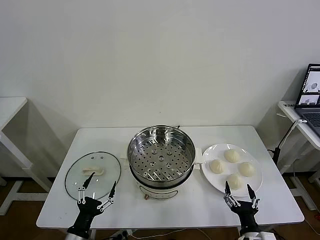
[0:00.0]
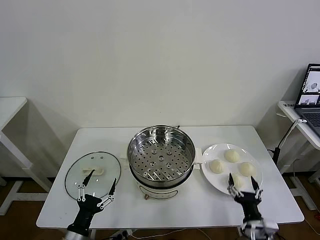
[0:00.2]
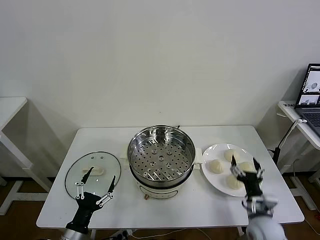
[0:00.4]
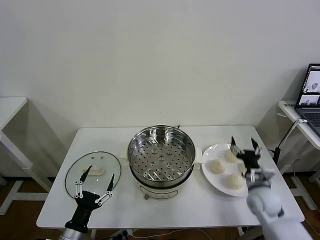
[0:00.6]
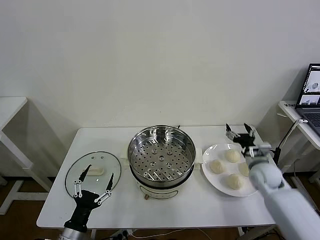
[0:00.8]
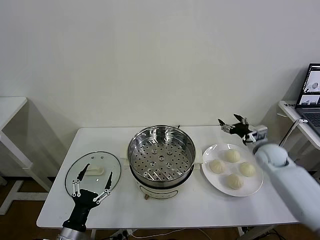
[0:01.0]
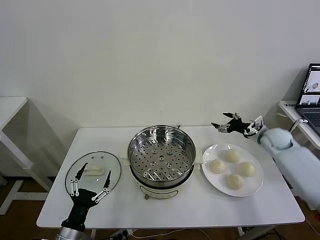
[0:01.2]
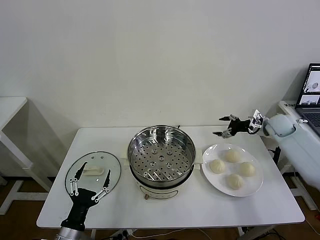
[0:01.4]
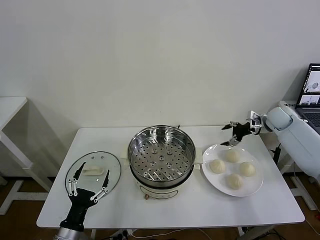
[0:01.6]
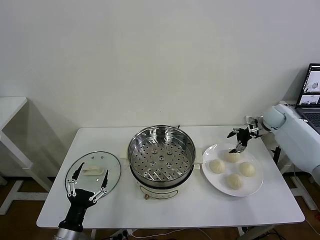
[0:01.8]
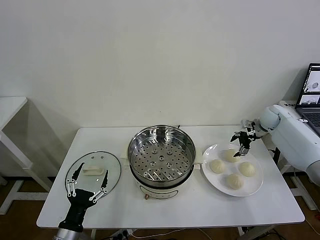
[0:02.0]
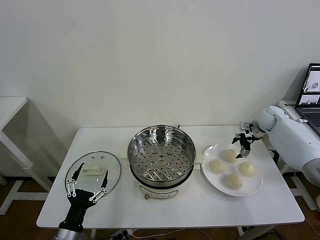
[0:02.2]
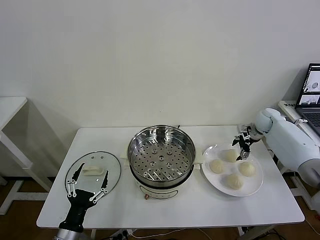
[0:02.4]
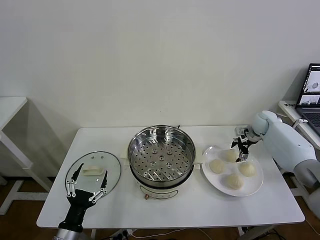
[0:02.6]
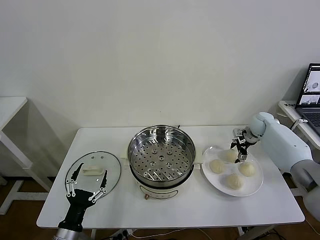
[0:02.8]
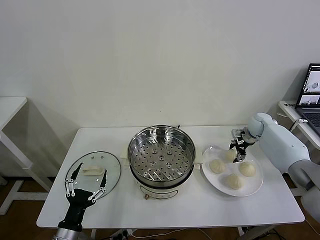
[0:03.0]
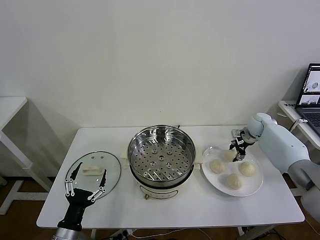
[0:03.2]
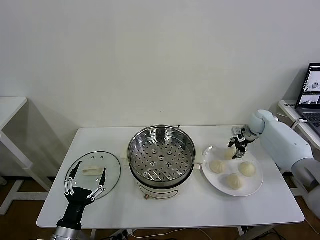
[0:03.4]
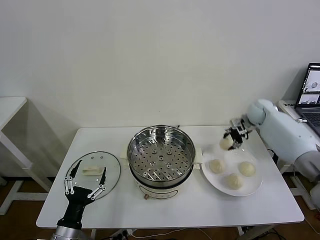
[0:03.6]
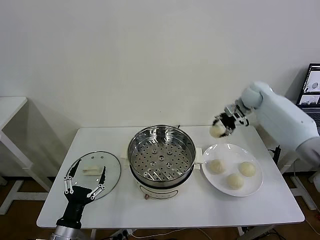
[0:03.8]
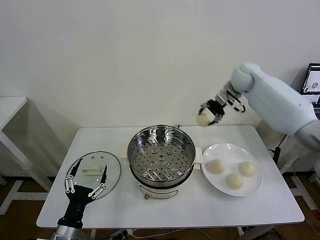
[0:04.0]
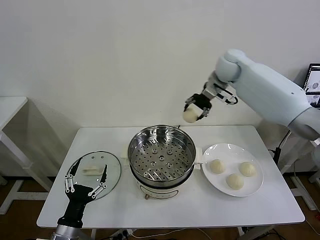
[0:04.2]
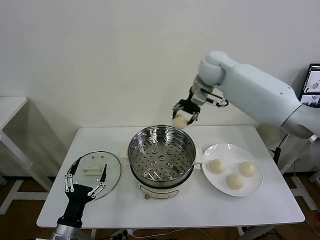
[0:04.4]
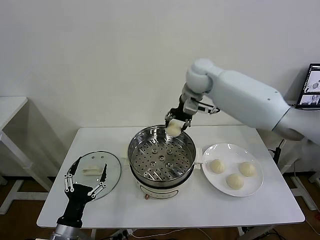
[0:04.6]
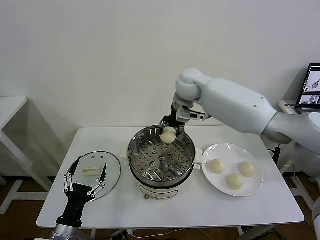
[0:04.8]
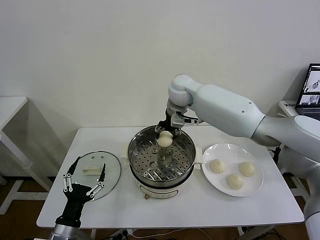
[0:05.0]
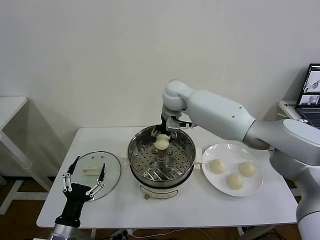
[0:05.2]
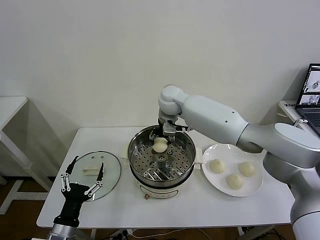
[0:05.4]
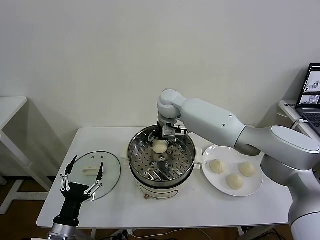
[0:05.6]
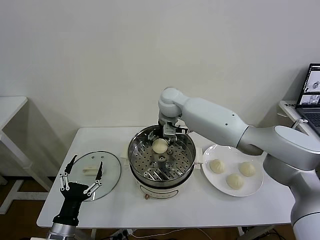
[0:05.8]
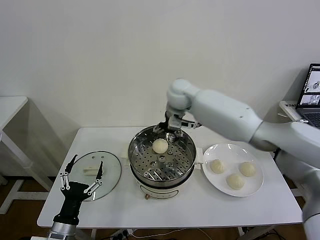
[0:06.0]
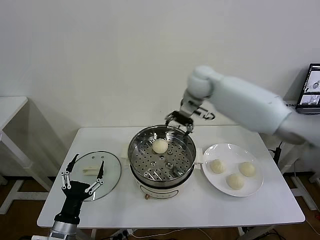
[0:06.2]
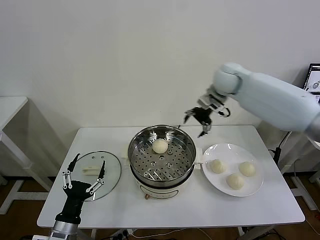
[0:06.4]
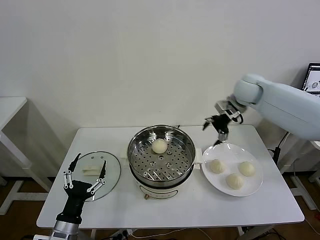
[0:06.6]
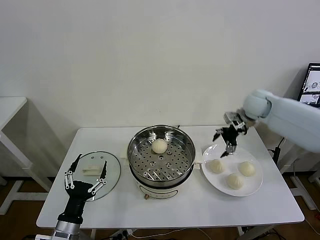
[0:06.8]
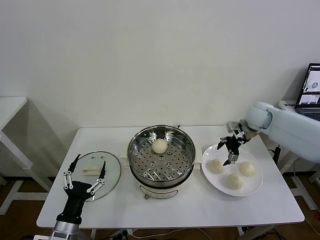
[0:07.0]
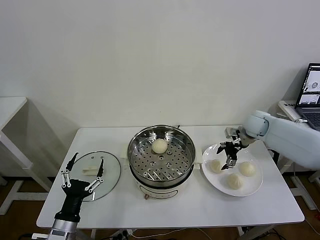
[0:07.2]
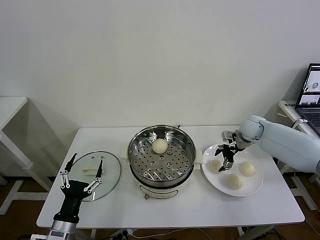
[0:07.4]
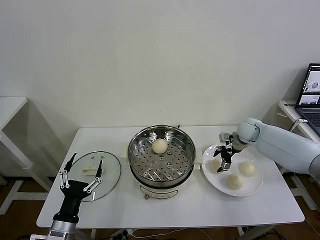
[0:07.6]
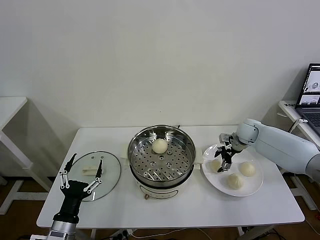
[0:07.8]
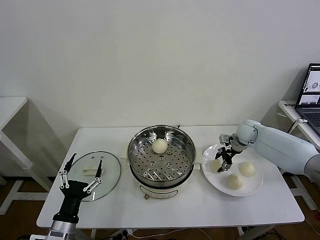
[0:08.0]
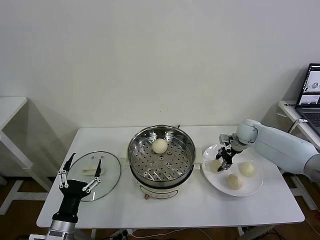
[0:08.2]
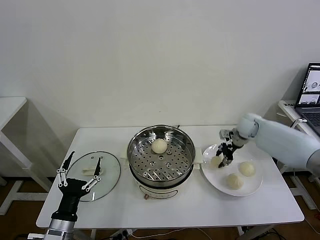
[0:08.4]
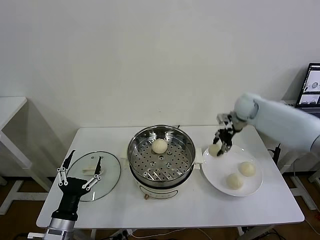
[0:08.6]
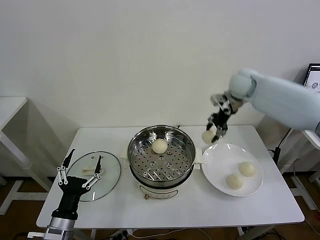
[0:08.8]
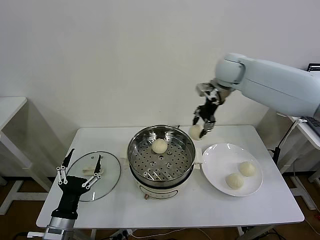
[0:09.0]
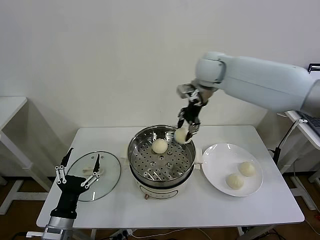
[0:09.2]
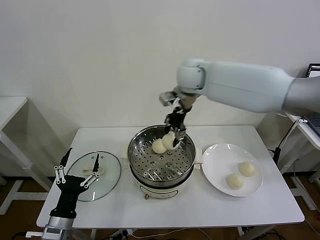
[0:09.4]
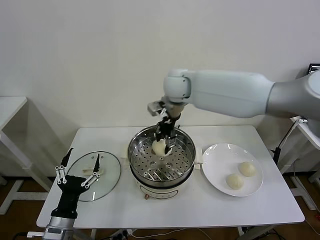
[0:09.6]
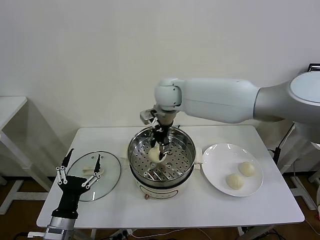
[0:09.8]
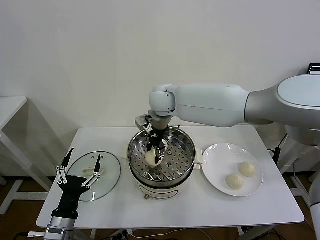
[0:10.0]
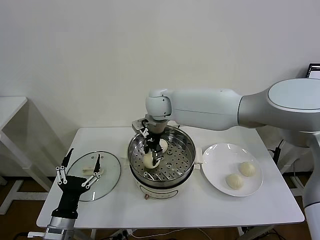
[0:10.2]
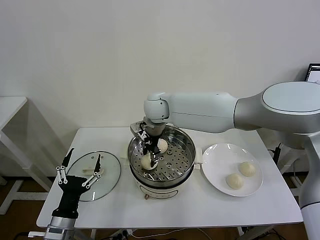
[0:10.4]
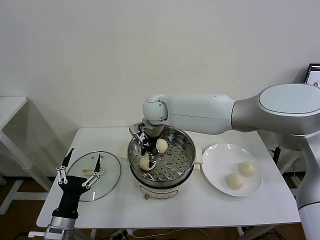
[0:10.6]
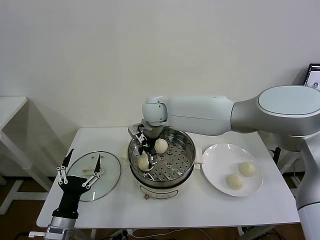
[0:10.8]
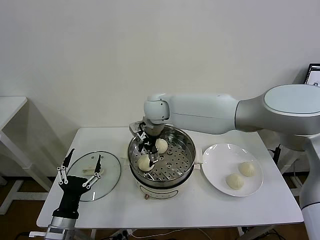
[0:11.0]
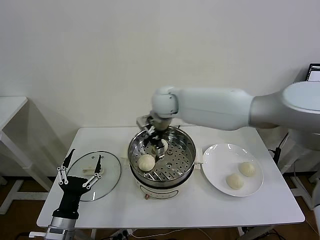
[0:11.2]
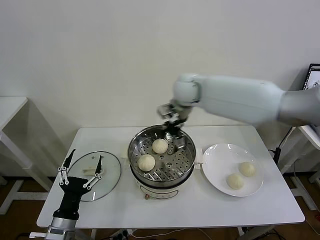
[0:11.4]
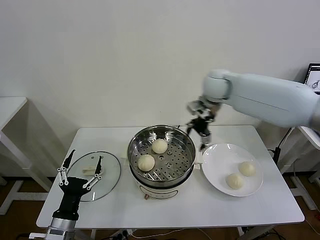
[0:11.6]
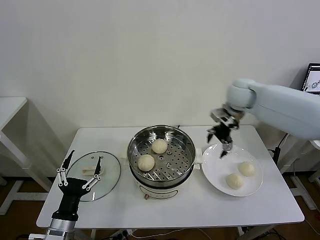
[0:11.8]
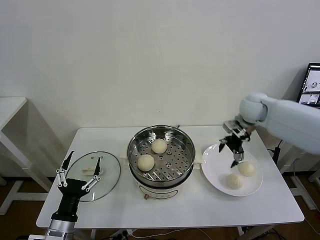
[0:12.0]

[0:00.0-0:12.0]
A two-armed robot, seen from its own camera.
Task of the whole recording: take steamed baozi put them in steamer then cover it.
Step, 0:00.0 to 0:02.8: Grasp the baozi in the plate with right gripper.
Step, 0:03.2 to 0:05.6: Place the baozi on the steamer with right gripper.
Step, 0:05.8 to 0:08.0: Grasp the baozi in the plate with right gripper.
Step, 0:08.2 to 0:10.8: Place the baozi on the steamer with right gripper.
0:01.6 to 0:03.0: The right gripper shifts about 5 cm downward, and closes.
0:03.0 to 0:04.4: The right gripper heads to the left and upward, covering about 35 cm.
0:04.4 to 0:06.0: The right gripper heads to the left and downward, covering some 10 cm, and opens its fingers.
0:06.0 to 0:07.6: The right gripper shifts roughly 30 cm to the right and downward.
0:07.6 to 0:09.0: The right gripper travels upward and to the left by some 30 cm, and closes its fingers.
0:09.0 to 0:10.4: The right gripper shifts some 25 cm to the left and downward.
0:10.4 to 0:12.0: The right gripper heads to the right, covering approximately 35 cm, and opens.

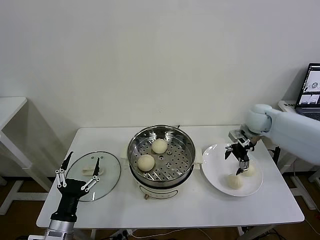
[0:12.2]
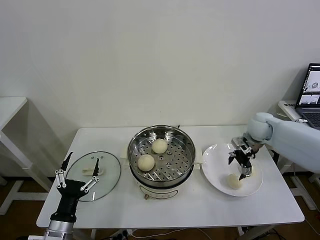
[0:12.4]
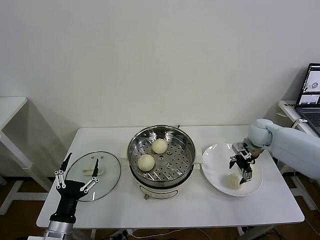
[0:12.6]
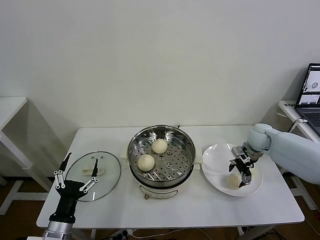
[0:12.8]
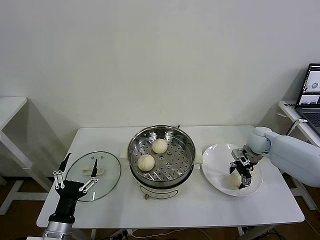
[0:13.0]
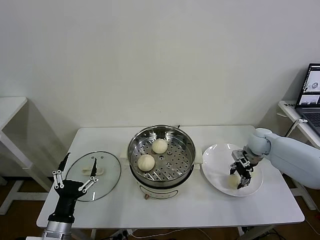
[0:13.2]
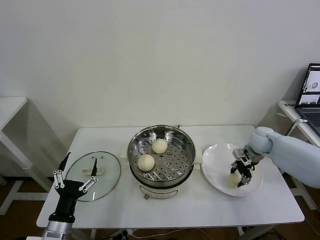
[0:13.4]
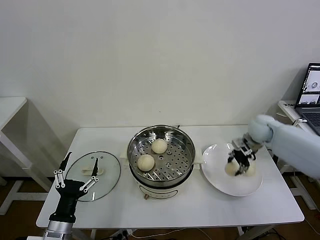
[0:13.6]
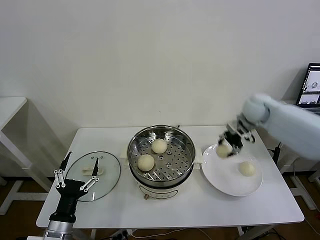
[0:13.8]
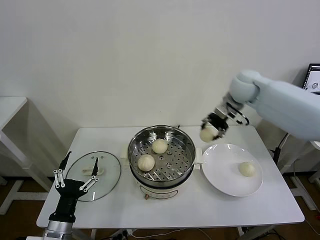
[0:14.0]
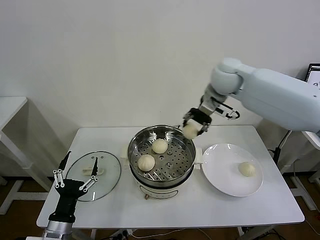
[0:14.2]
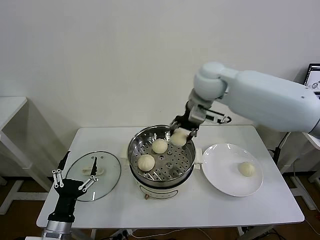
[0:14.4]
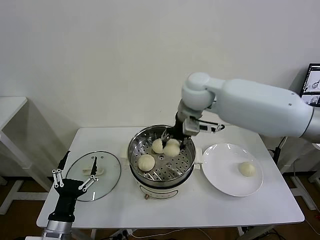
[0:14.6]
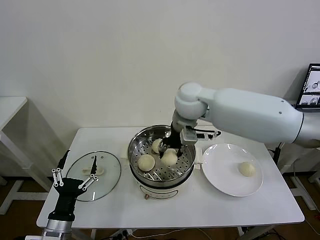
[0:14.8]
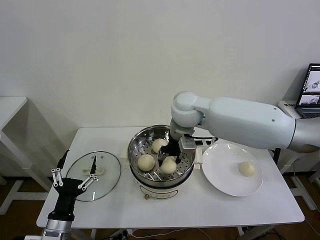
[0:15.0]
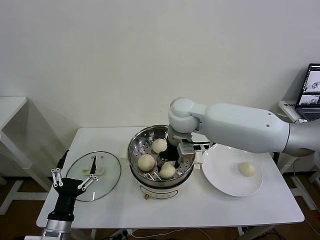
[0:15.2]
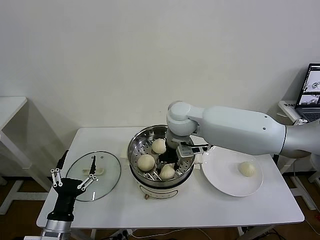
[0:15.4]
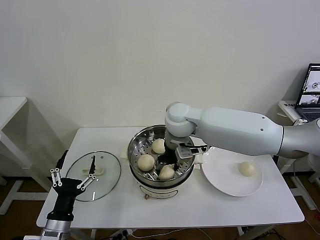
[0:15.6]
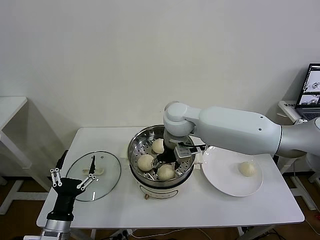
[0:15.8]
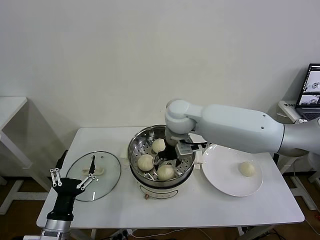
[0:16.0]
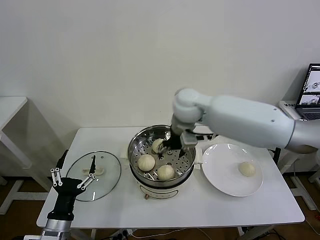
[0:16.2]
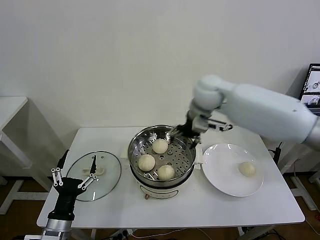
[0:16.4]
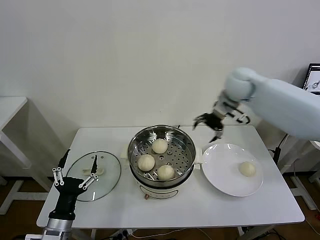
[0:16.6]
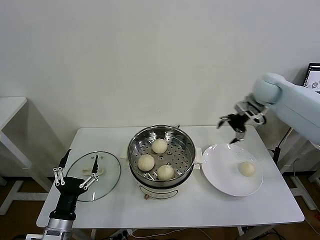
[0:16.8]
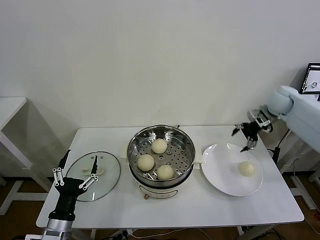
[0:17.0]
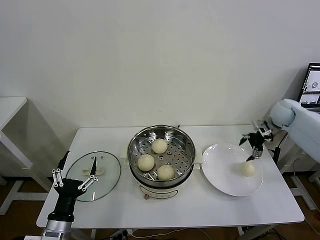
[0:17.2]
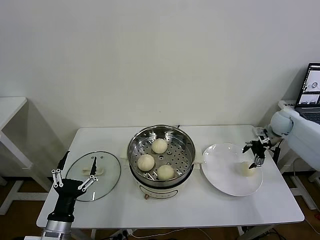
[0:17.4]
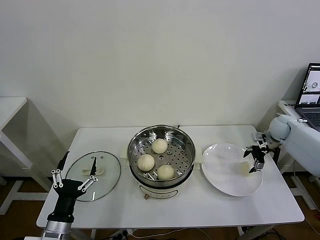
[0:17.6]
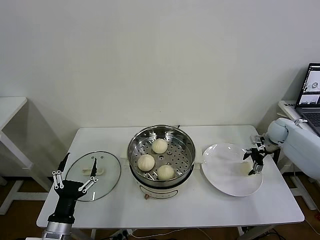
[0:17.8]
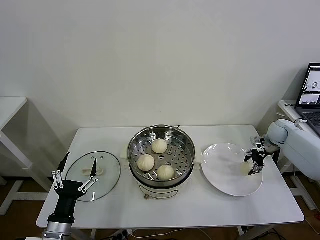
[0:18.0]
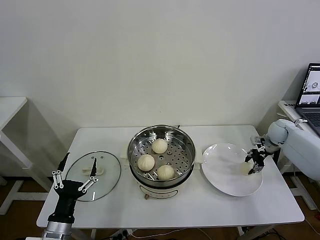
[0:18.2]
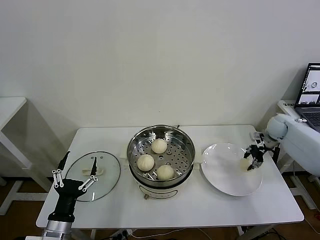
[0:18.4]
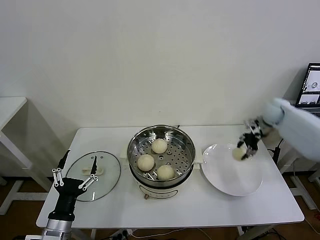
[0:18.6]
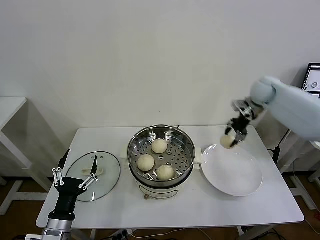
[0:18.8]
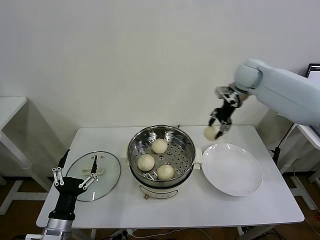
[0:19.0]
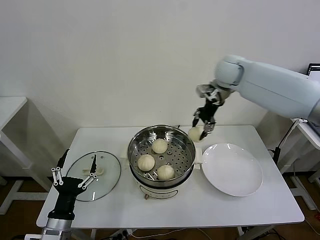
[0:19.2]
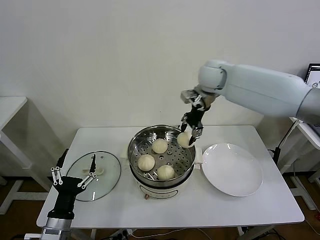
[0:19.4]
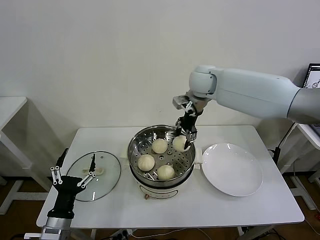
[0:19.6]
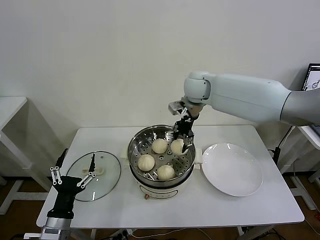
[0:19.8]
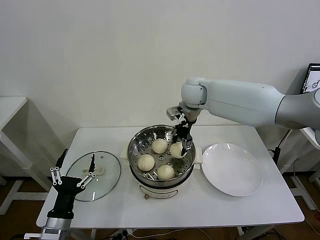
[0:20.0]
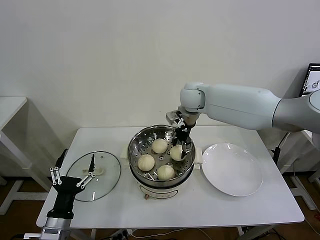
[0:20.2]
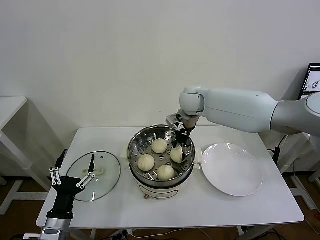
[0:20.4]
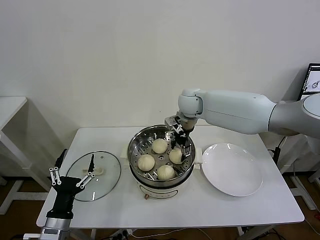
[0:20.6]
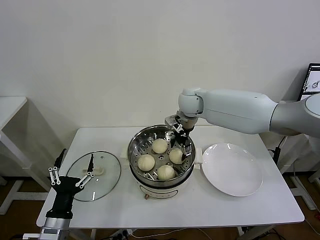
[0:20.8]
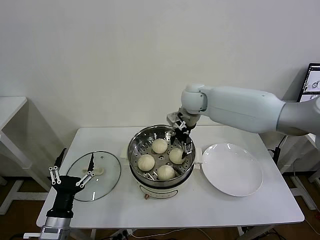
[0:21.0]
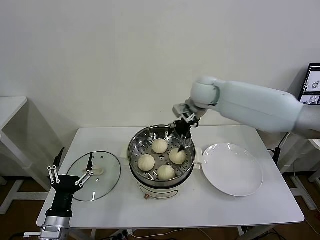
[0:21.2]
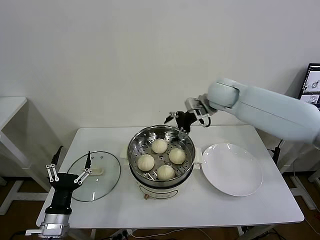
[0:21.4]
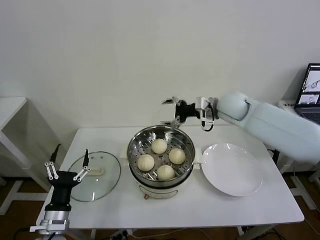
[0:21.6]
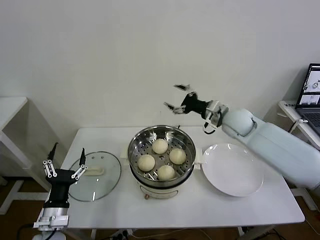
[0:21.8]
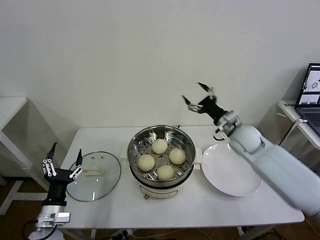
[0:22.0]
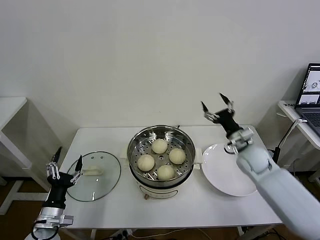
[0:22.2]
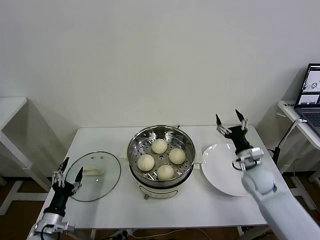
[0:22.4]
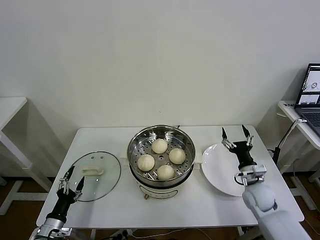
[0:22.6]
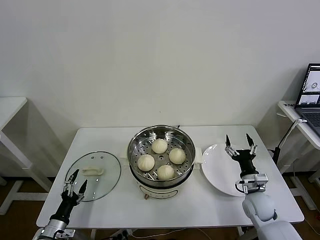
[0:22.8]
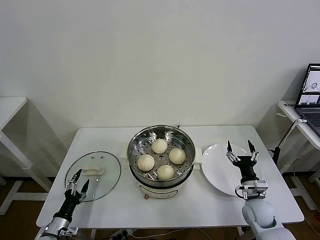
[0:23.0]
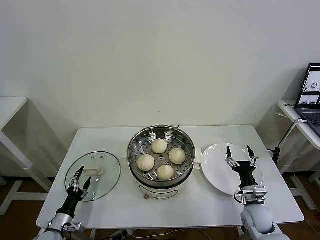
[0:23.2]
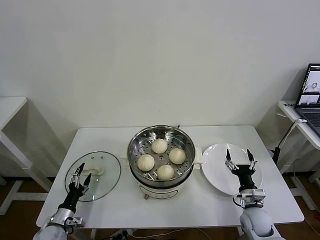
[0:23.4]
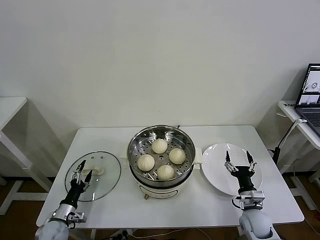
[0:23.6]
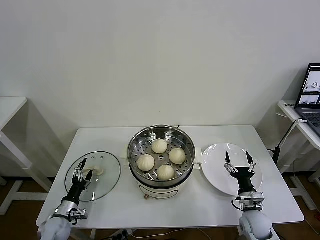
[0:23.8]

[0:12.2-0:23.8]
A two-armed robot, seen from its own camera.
Task of the whole recording: take steamed baozi put them in steamer then cover it.
Step, 0:13.4 to 0:15.8: Place the baozi on the steamer with right gripper.
Step, 0:16.0 to 0:18.0: Grasp the baozi in the plate with right gripper.
Step, 0:18.2 to 0:20.8: Place the baozi on the steamer with right gripper.
0:12.2 to 0:13.6: The right gripper travels downward and back again, about 10 cm each way, and closes up.
0:13.6 to 0:15.0: The right gripper shifts about 30 cm to the left and upward.
0:15.0 to 0:16.6: The right gripper moves to the right and forward, approximately 20 cm, and opens up.
0:16.6 to 0:18.0: The right gripper moves to the right and downward, roughly 30 cm, and closes its fingers.
0:18.0 to 0:19.4: The right gripper moves to the left and upward, approximately 40 cm, and closes.
0:19.4 to 0:21.0: The right gripper moves downward, some 5 cm, and opens up.
0:21.0 to 0:22.4: The right gripper heads to the right, downward and backward, covering some 35 cm, while the left gripper heads to the left and downward, covering roughly 10 cm.
0:22.4 to 0:23.8: The left gripper goes roughly 10 cm downward and forward. Meanwhile the right gripper heads downward and backward, covering roughly 15 cm.
